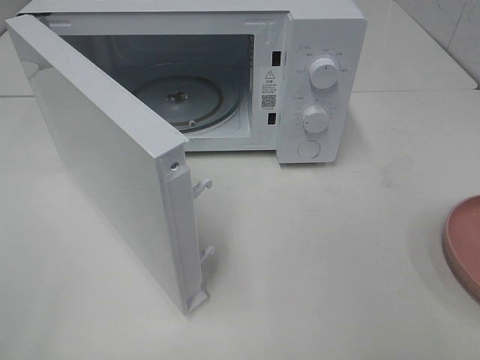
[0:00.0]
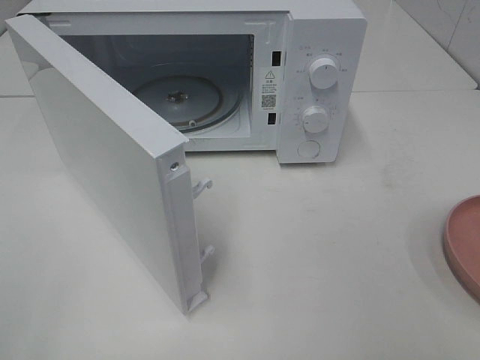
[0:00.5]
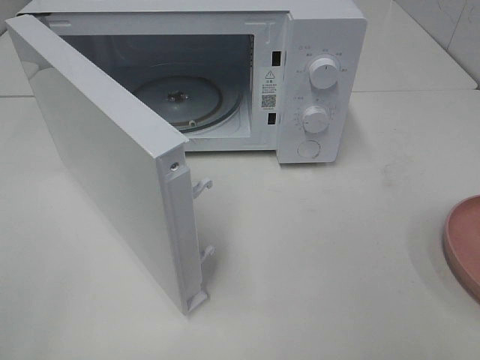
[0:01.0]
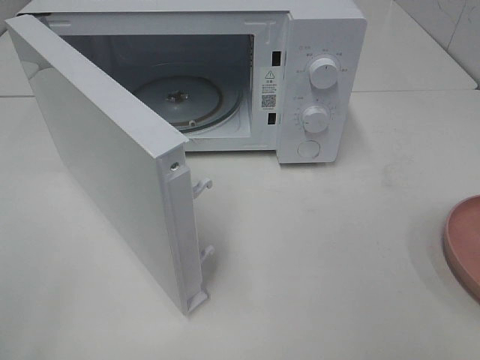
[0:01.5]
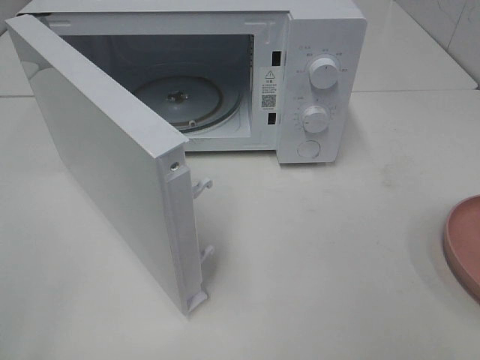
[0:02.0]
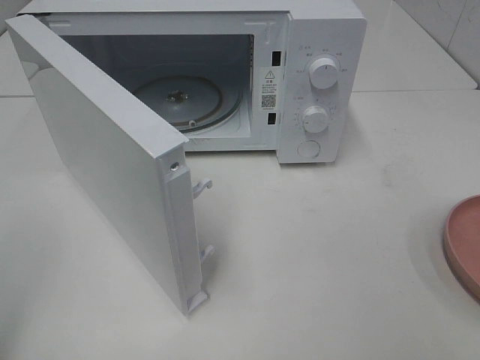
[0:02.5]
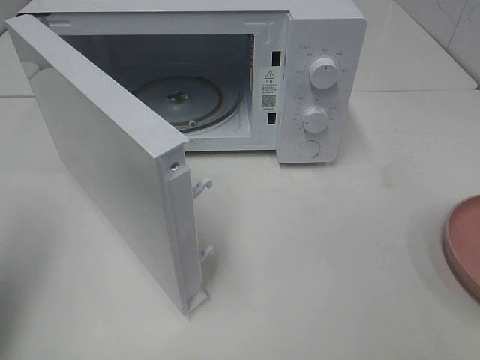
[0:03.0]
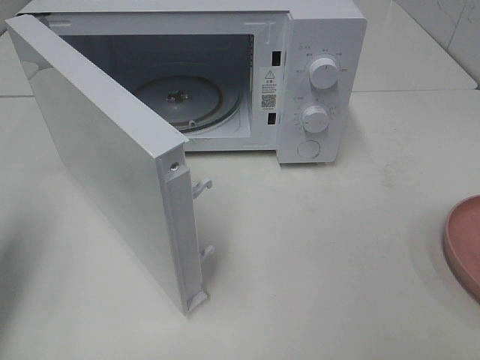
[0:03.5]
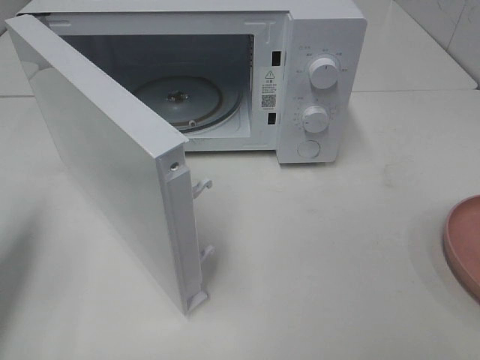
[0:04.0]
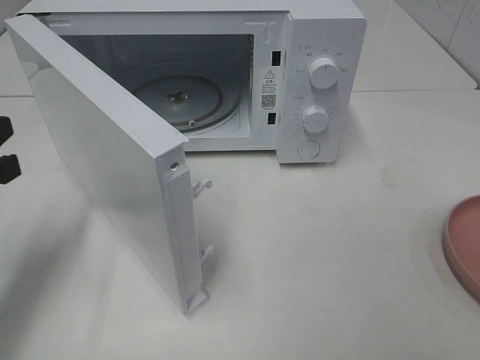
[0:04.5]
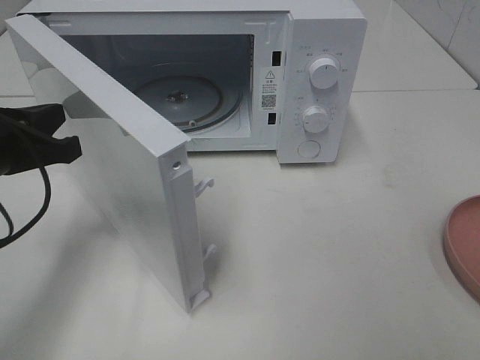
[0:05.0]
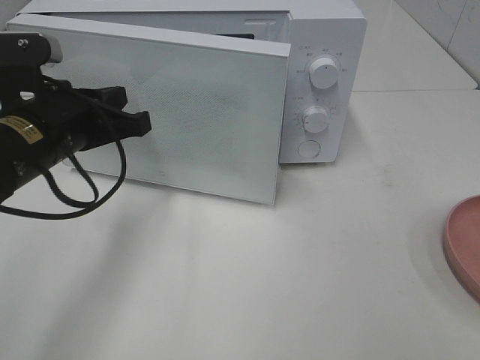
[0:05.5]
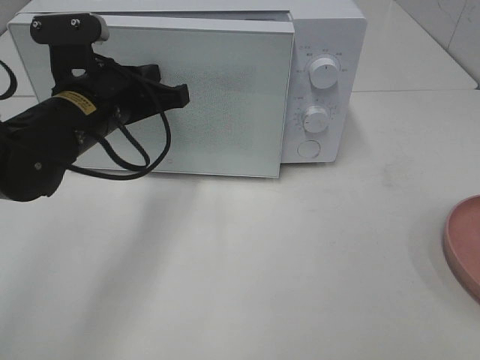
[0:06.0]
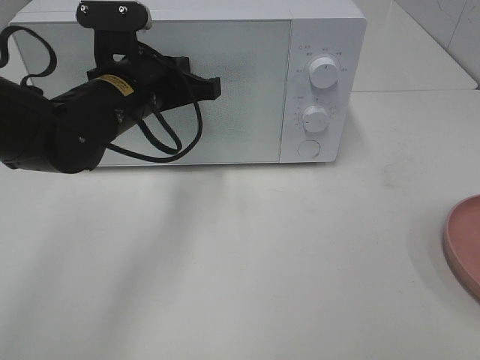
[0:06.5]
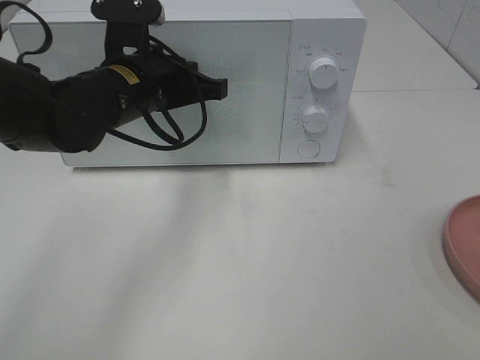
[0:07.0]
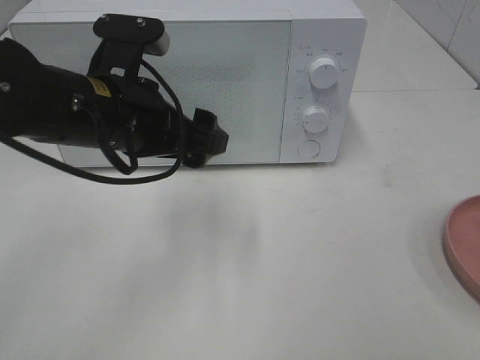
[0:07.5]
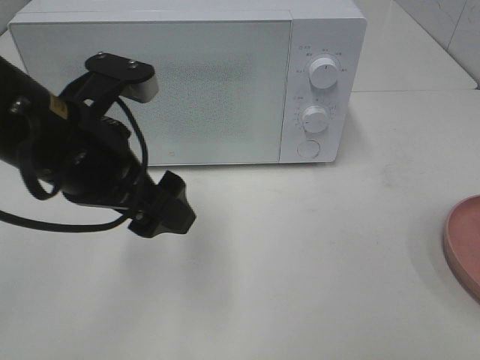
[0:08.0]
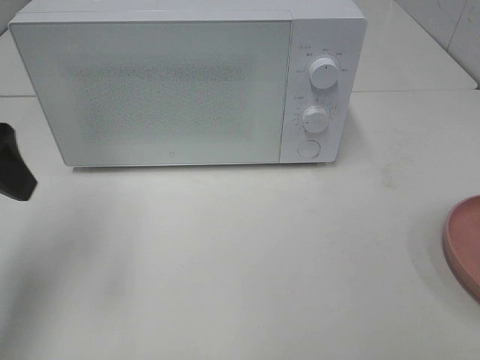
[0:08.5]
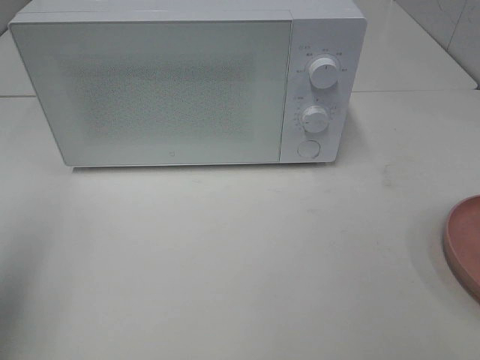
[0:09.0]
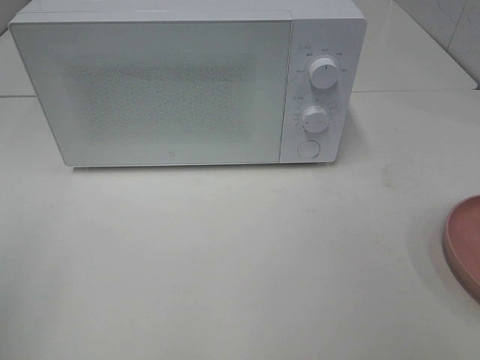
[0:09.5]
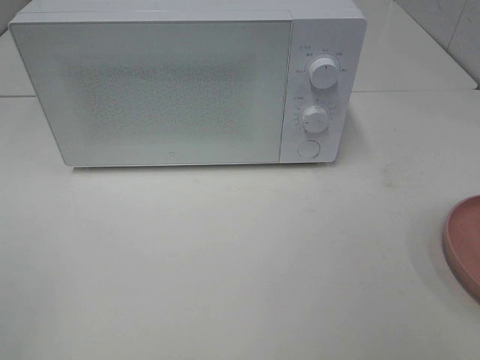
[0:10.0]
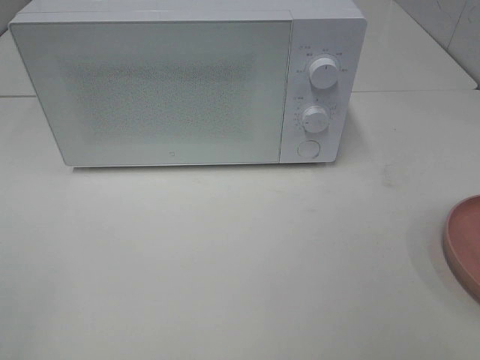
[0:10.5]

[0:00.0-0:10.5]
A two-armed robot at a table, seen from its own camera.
Task of the whole recording: Heat the burger.
Step, 0:00.0 to 0:07.0: Left hand: close the microwave door.
0:00.0 to 0:02.0: Neither gripper changes place.
0:02.0 to 0:04.0: The left gripper heads forward, covering approximately 20 cm, and closes up.
0:04.0 to 0:06.5: The left gripper is displaced to the right and forward by approximately 25 cm.
0:06.5 to 0:08.5: The left gripper travels to the left, backward and upward by approximately 20 cm, and opens its fingers.
0:08.5 to 0:10.5: The left gripper shifts about 25 cm backward.

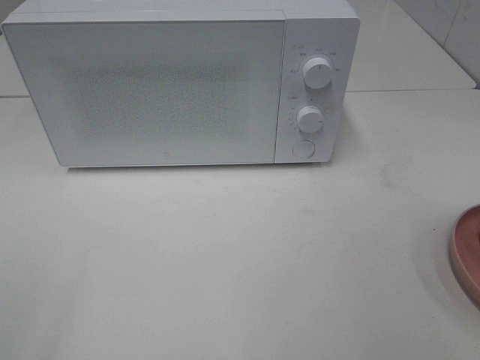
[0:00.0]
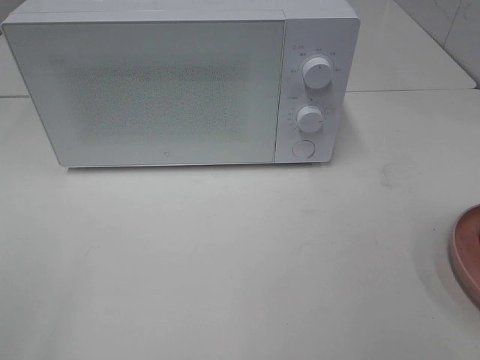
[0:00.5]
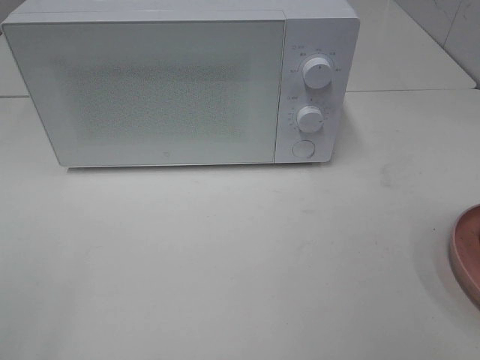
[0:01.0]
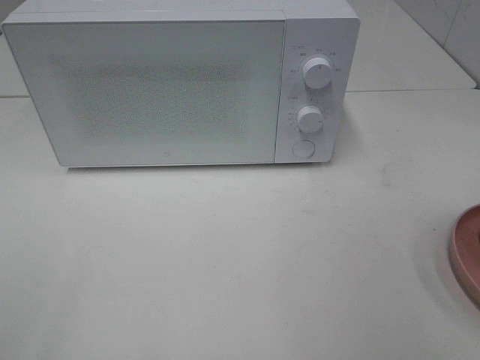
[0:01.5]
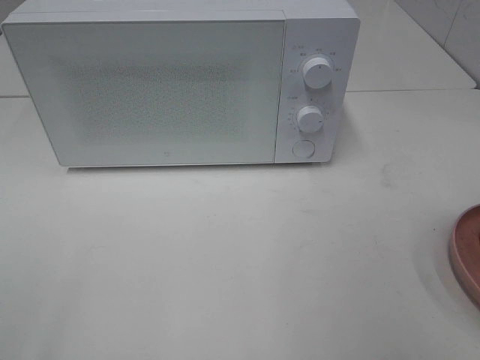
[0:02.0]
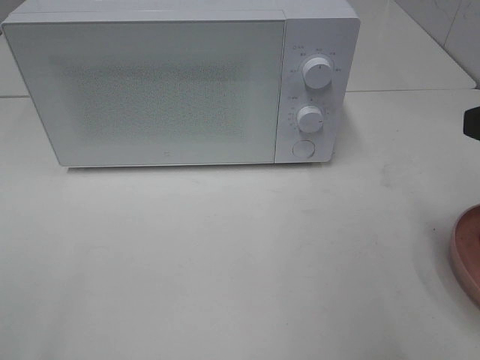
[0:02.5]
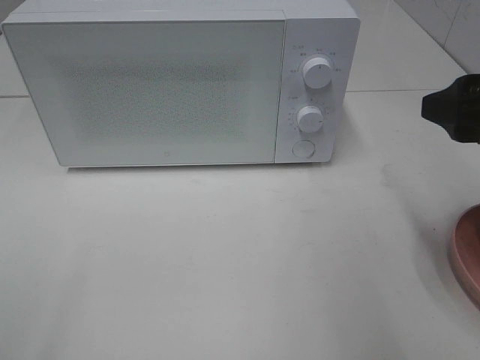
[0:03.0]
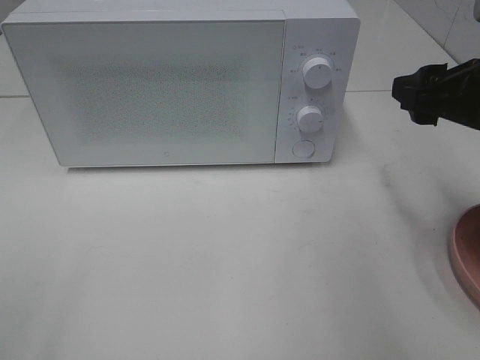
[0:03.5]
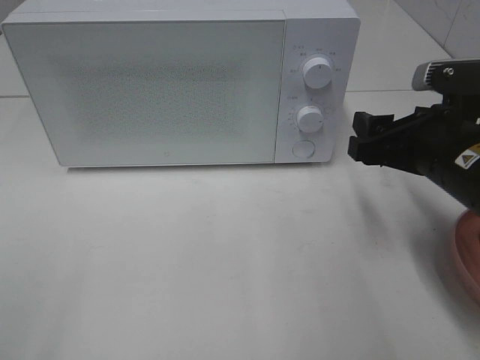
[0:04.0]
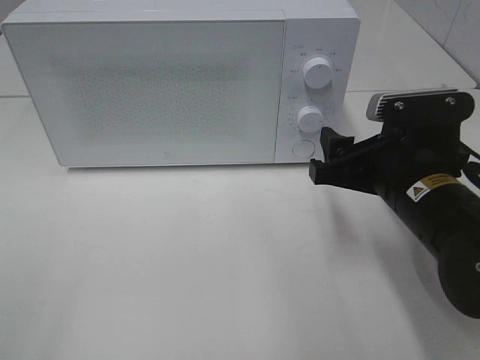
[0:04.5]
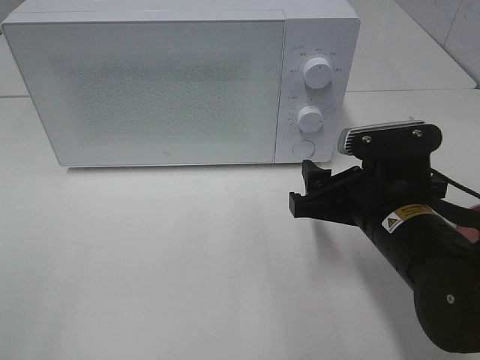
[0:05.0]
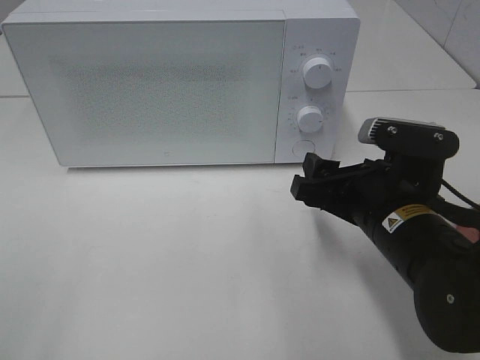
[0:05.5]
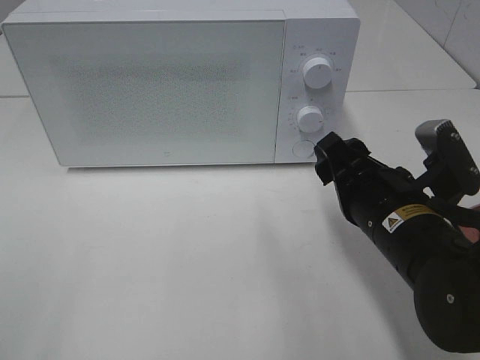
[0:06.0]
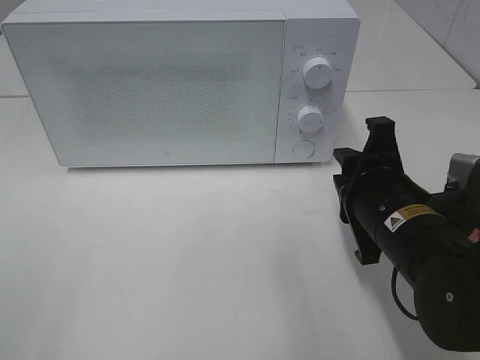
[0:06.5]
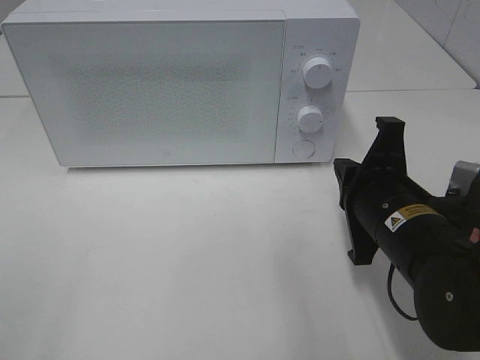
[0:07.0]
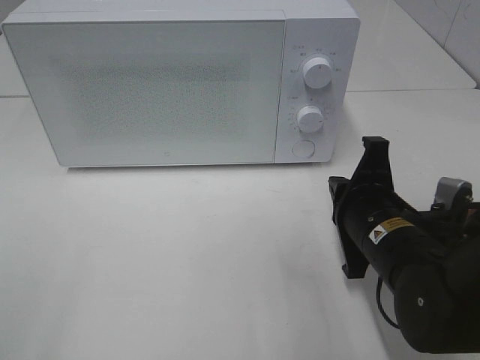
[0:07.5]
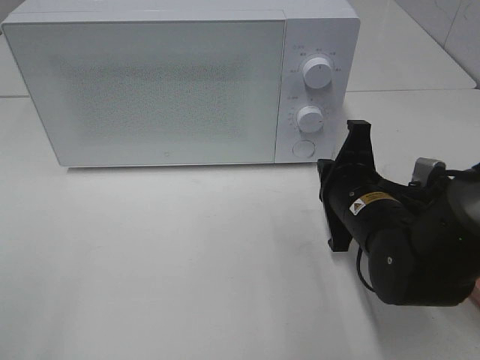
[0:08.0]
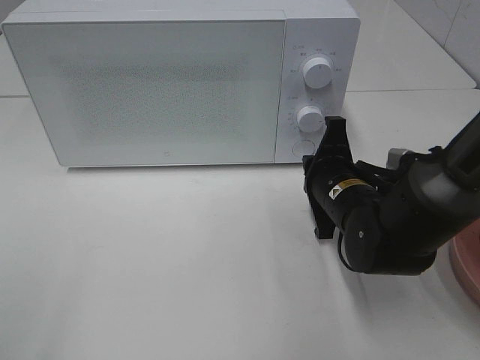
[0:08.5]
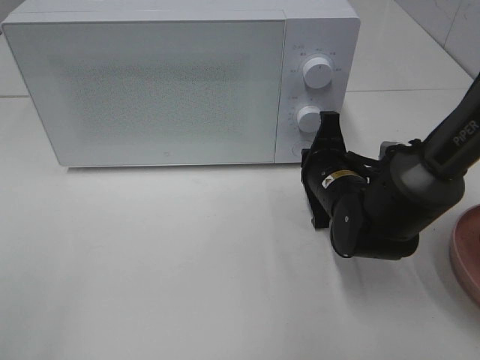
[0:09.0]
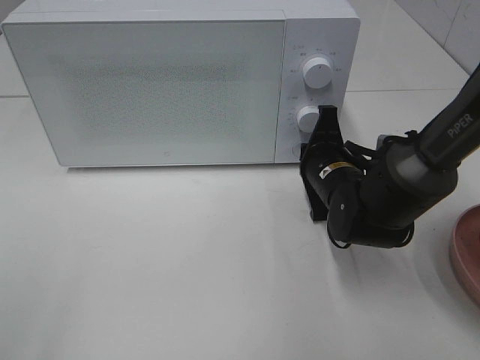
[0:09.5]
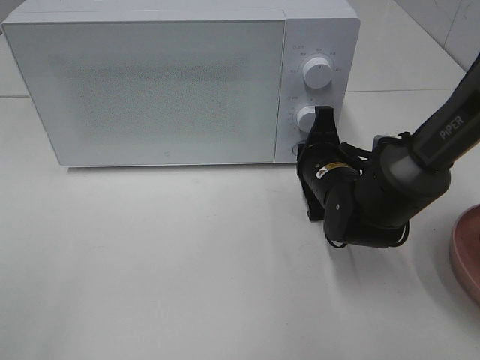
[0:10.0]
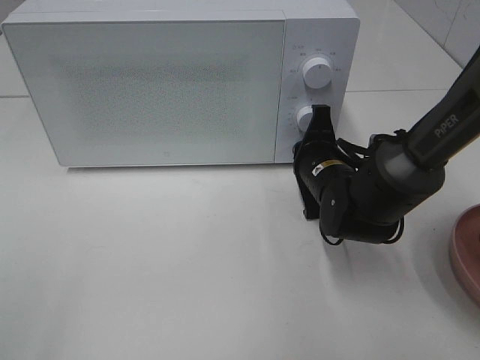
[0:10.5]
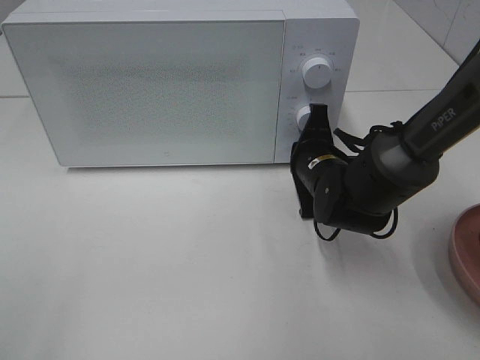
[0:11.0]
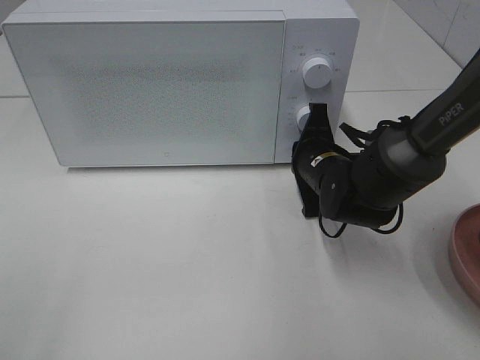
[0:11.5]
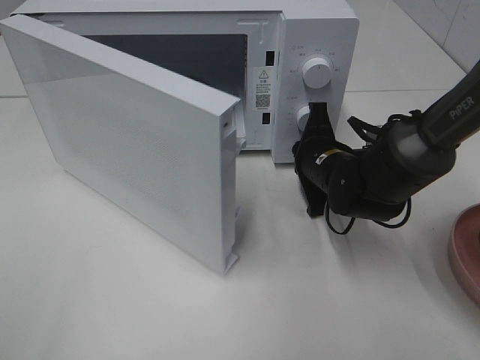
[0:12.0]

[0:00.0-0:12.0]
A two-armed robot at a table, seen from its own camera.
Task of the whole recording: Heat the burger.
0:02.0 to 0:04.0: The right gripper moves forward, downward and to the left, some 20 cm.
0:04.0 to 0:06.0: The right gripper moves to the left, roughly 5 cm.
0:06.0 to 0:08.0: The right gripper ends up roughly 5 cm from where it was, and closes its fingers.
0:08.0 to 0:10.0: The right gripper travels forward by about 10 cm.

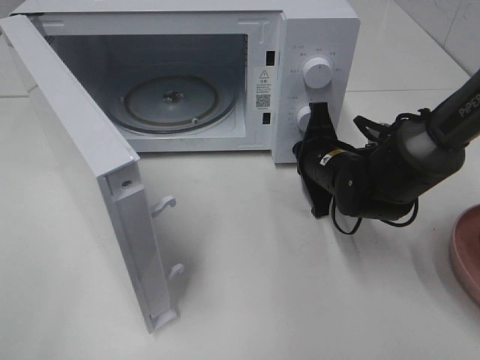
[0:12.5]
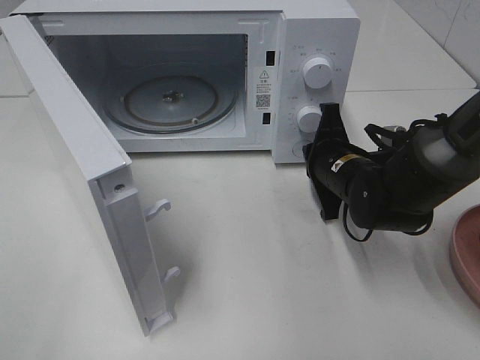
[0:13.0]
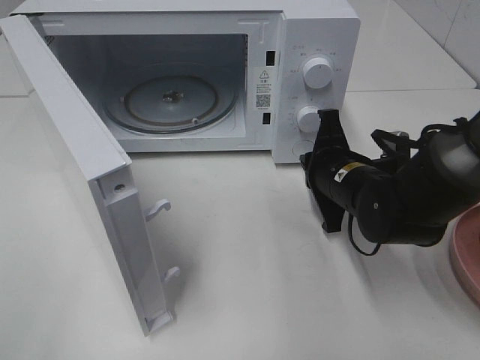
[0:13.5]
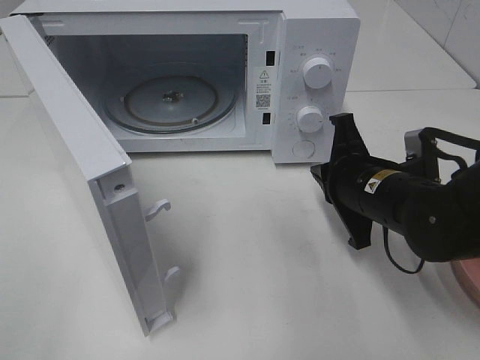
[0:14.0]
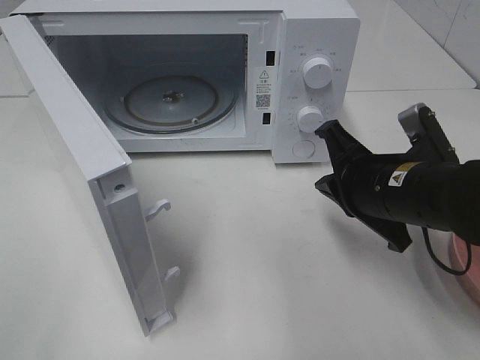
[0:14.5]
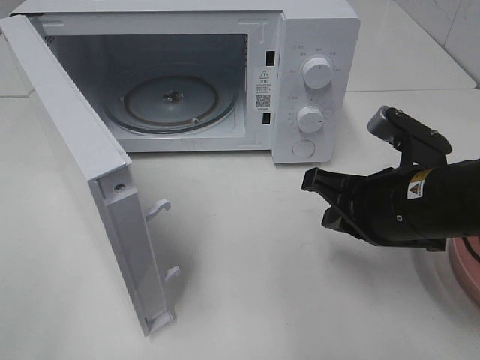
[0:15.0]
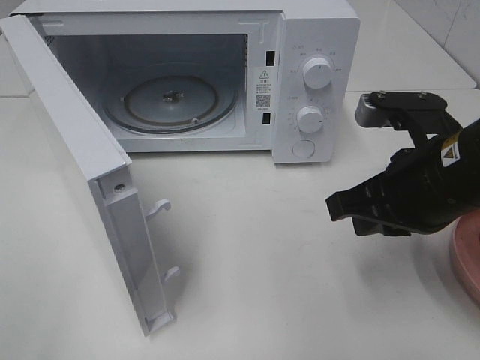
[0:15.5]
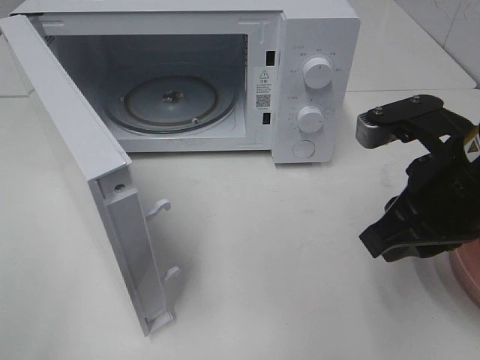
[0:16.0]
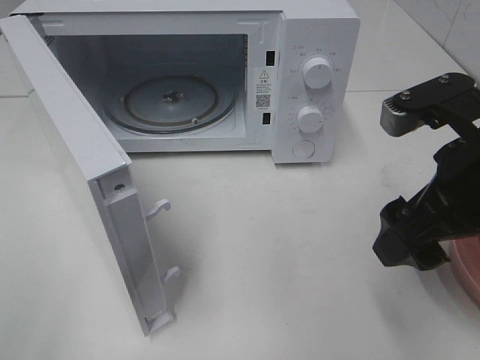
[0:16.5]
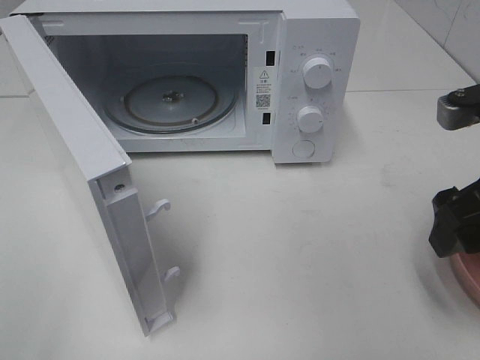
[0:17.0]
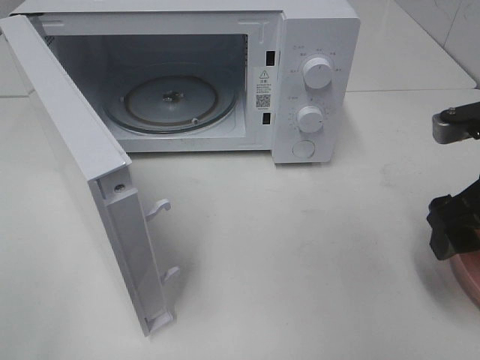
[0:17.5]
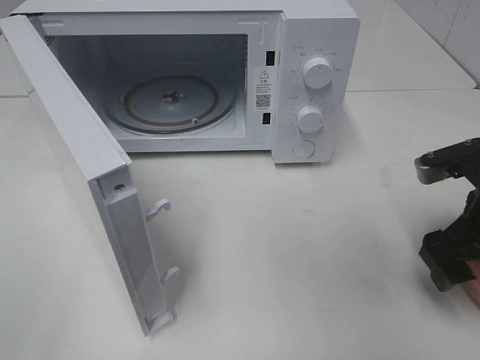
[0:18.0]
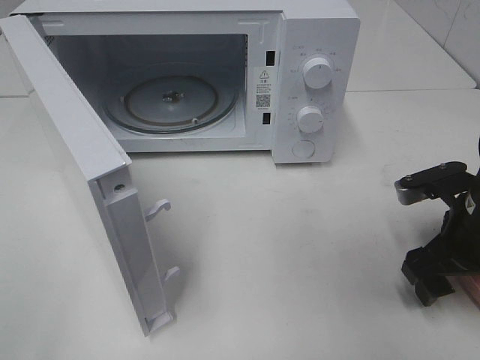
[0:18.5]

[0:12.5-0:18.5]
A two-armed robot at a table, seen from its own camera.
Task of the whole recording: Heat the burger.
0:12.5 to 0:14.5: The right gripper is displaced backward and upward by roughly 15 cm.
0:14.5 to 0:16.5: The right gripper goes roughly 10 cm upward and backward, and opens its fingers.
0:16.5 to 0:18.5: The right gripper moves downward and to the right, roughly 15 cm.
